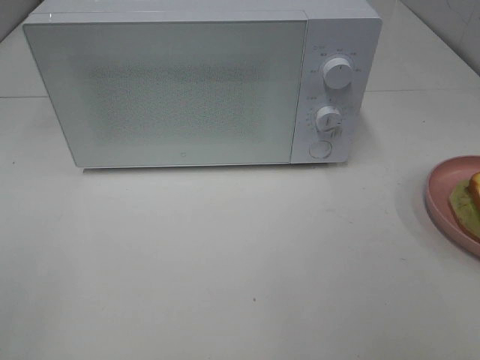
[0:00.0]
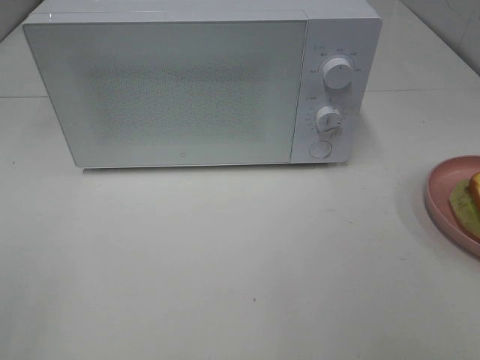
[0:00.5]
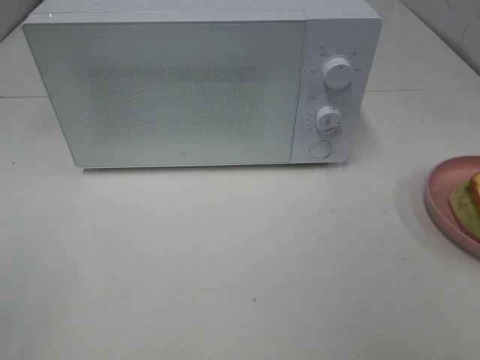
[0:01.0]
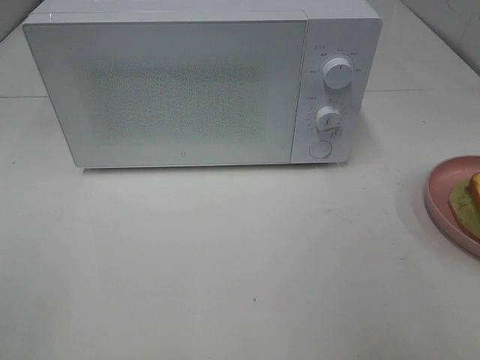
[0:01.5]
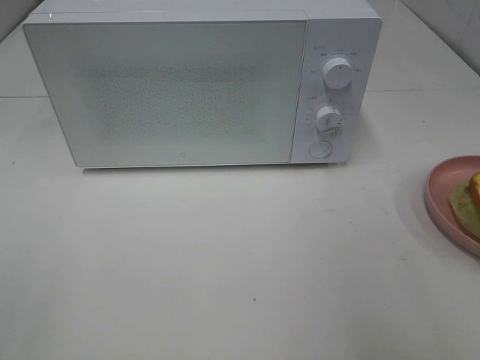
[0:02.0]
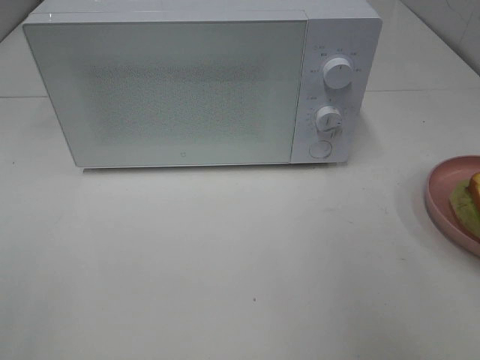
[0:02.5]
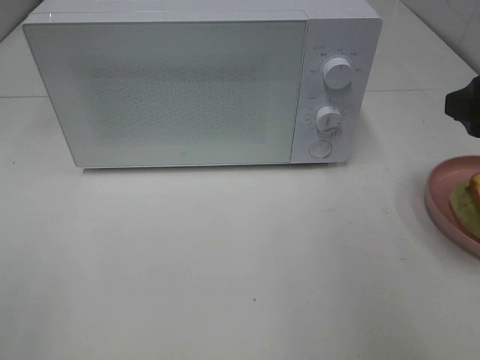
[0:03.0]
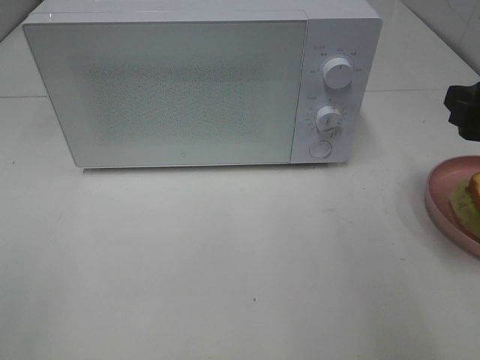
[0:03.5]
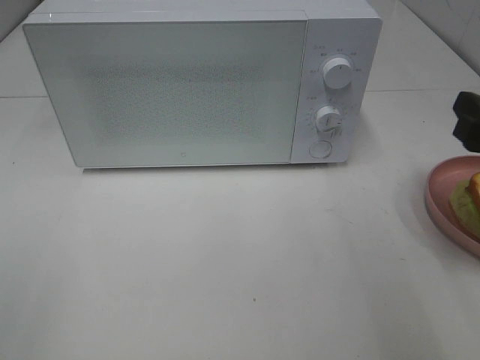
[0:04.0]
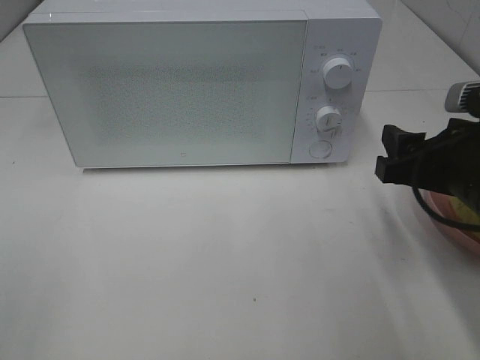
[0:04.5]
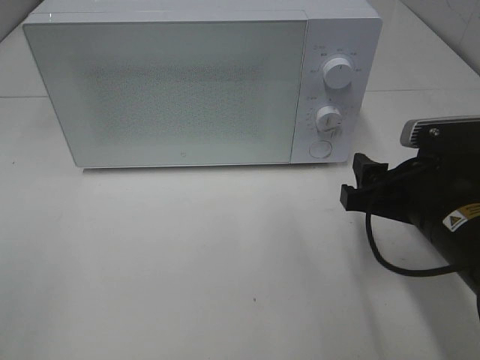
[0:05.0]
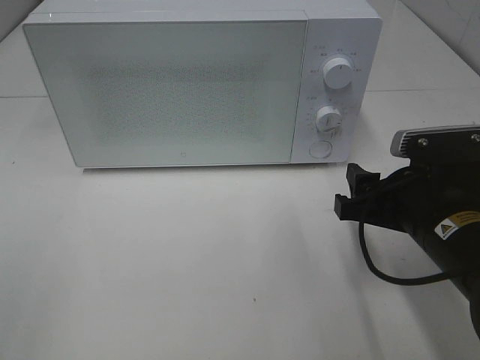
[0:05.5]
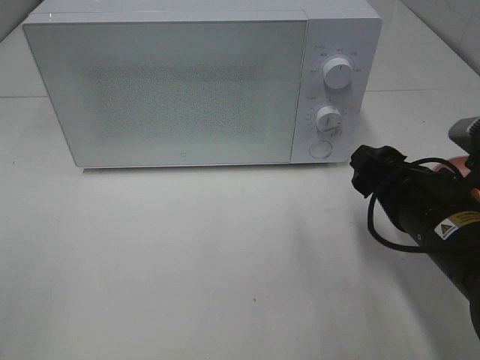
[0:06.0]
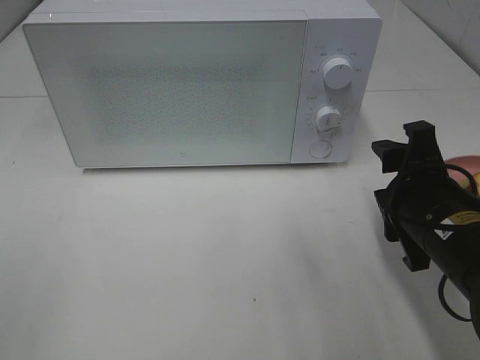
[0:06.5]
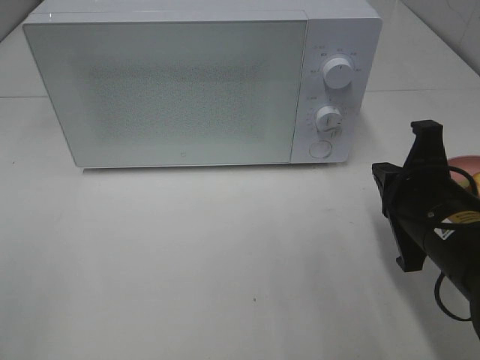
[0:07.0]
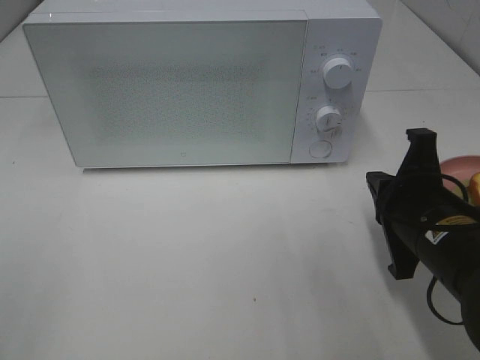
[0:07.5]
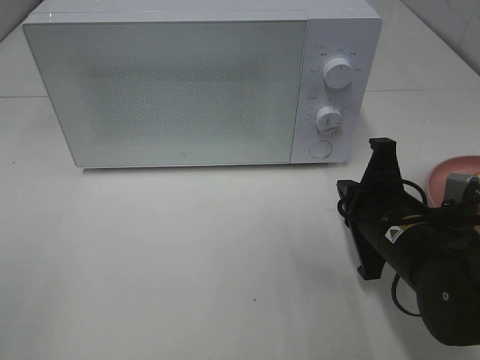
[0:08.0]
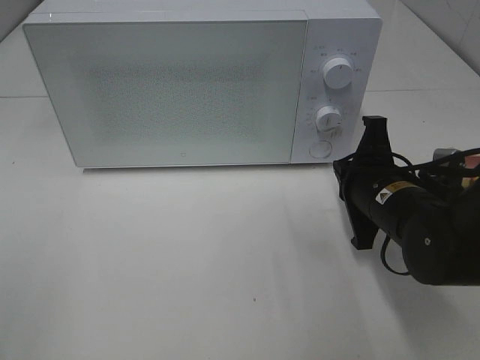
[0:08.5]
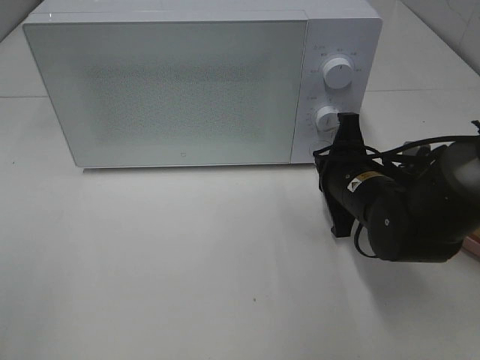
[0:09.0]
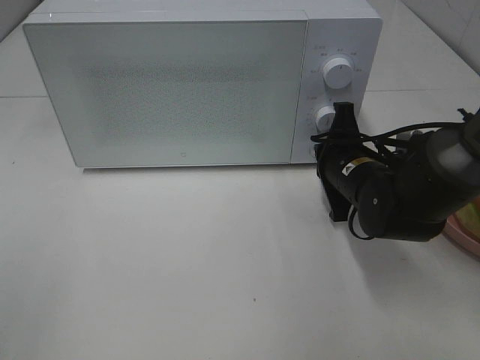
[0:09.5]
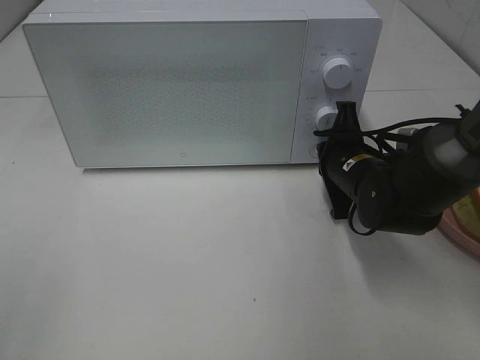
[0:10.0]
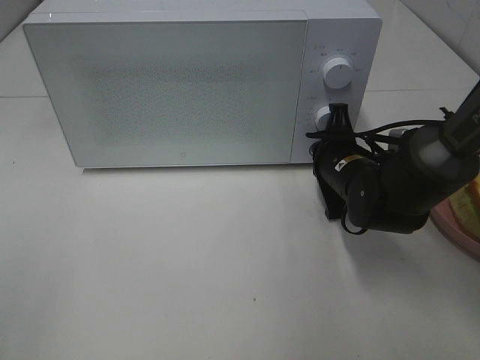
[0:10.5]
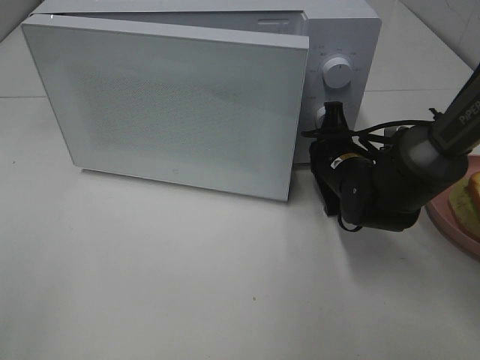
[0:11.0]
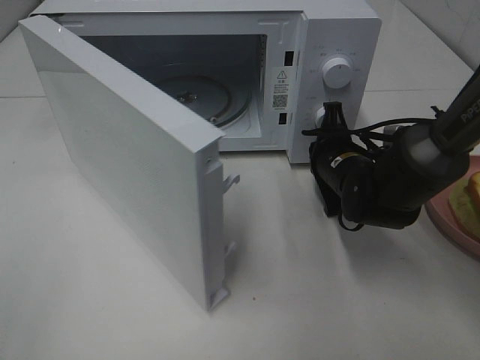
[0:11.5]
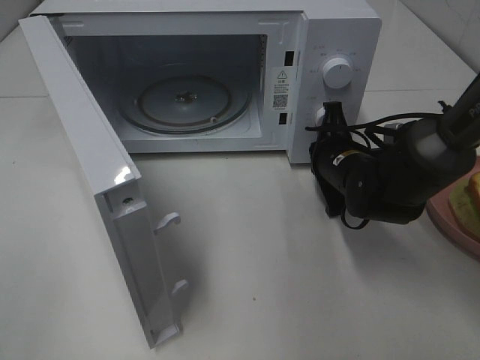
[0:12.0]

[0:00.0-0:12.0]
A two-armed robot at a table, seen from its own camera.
Task of the whole recording: Heat Sandwich.
0:02.0 to 0:04.0: The right gripper is displaced downward and forward by some 10 cm.
0:04.0 to 0:06.0: The right gripper goes approximately 10 cm to the left and downward.
0:06.0 to 0:08.0: The right gripper closes up.
0:08.0 to 0:10.0: The right gripper goes roughly 10 cm forward.

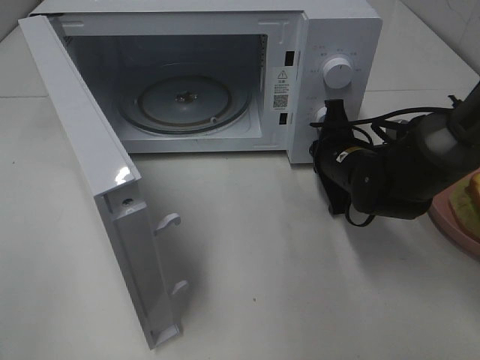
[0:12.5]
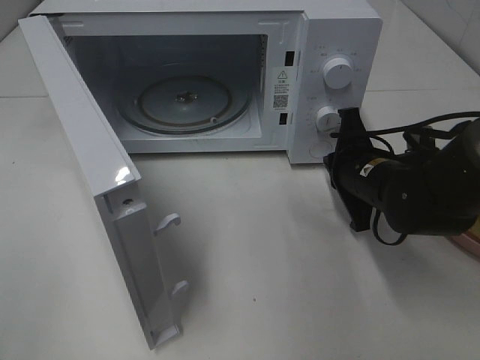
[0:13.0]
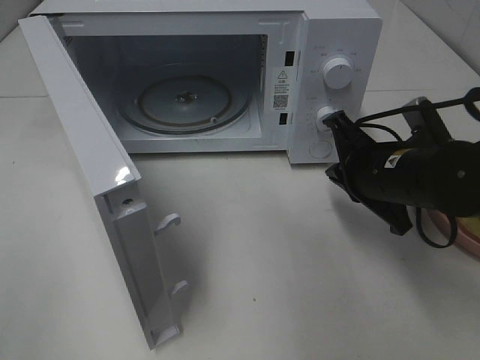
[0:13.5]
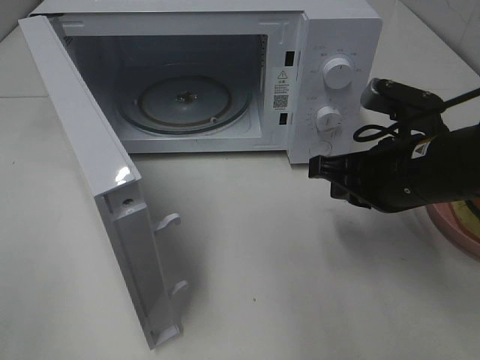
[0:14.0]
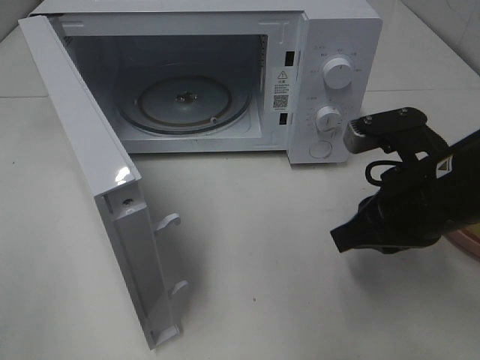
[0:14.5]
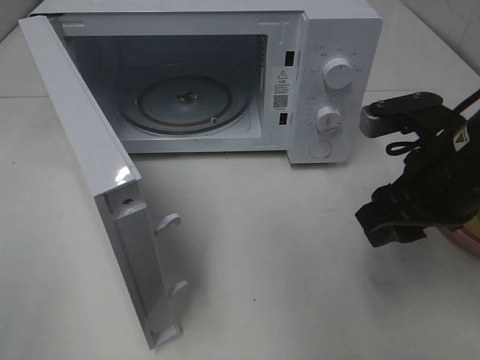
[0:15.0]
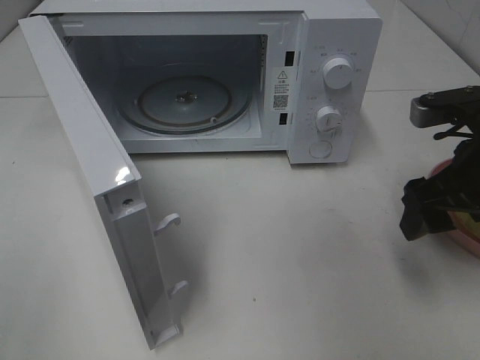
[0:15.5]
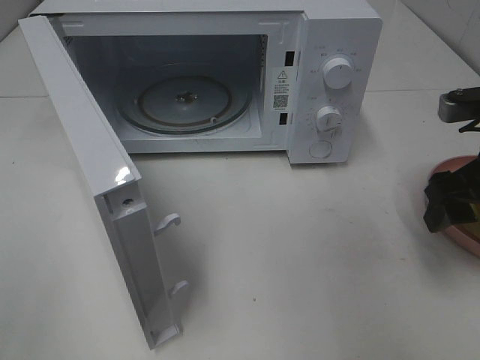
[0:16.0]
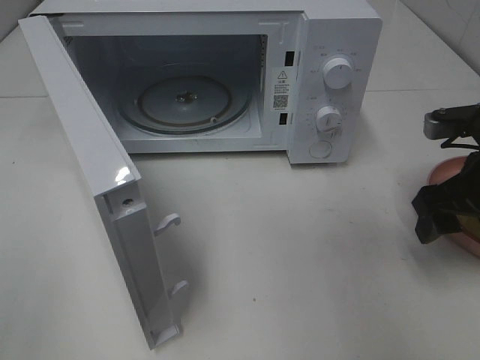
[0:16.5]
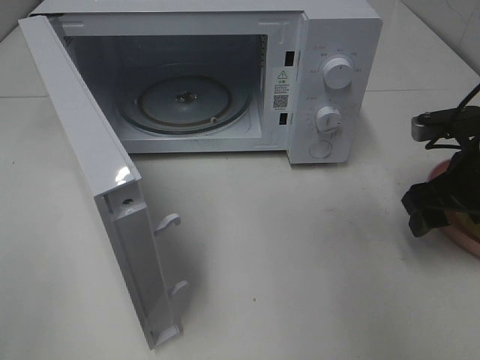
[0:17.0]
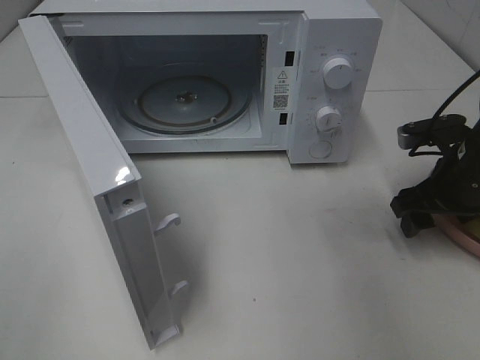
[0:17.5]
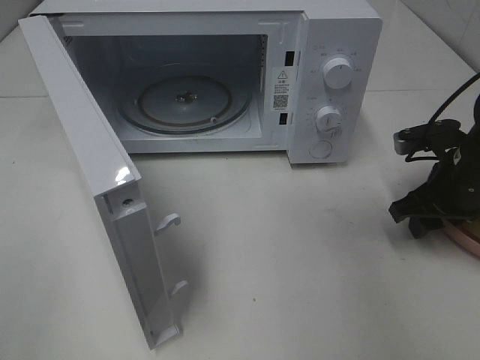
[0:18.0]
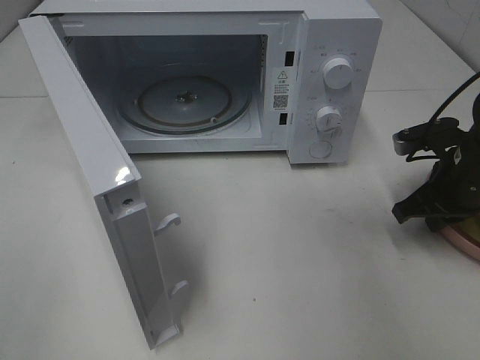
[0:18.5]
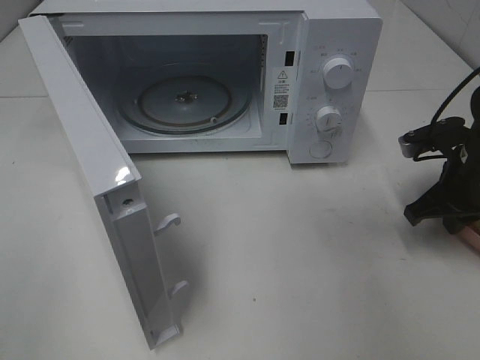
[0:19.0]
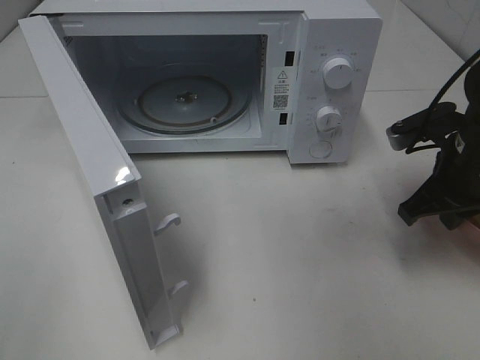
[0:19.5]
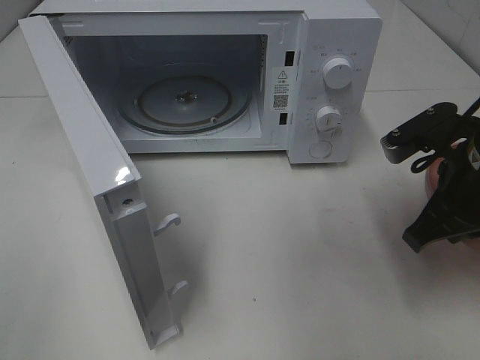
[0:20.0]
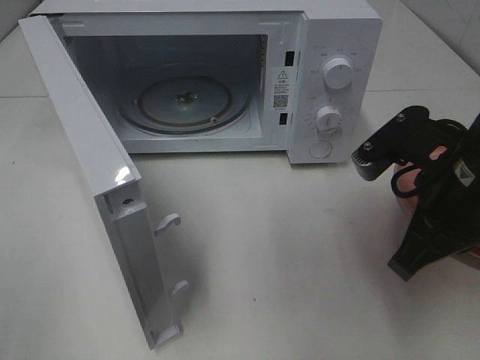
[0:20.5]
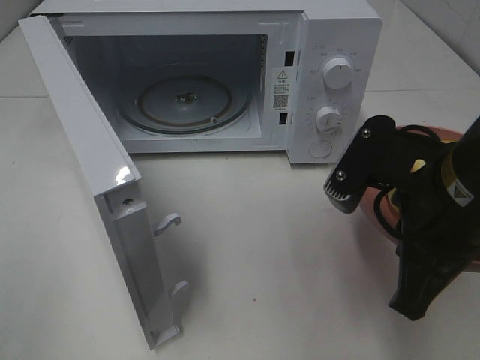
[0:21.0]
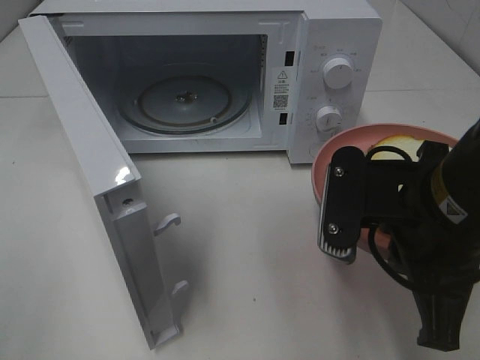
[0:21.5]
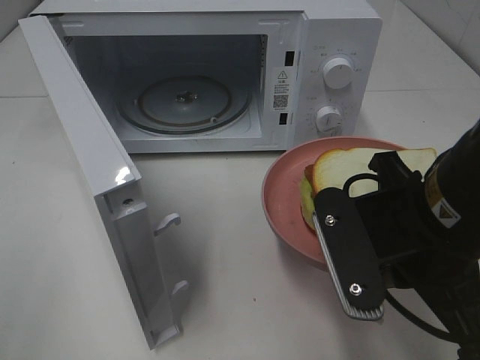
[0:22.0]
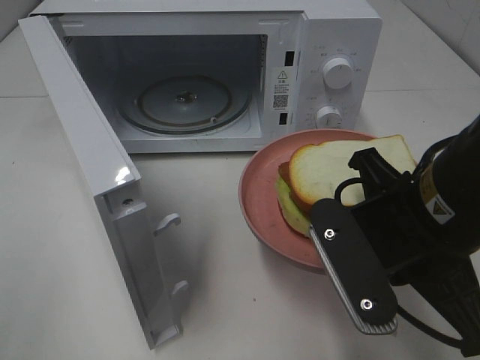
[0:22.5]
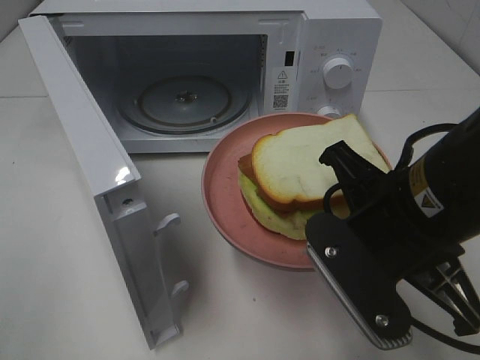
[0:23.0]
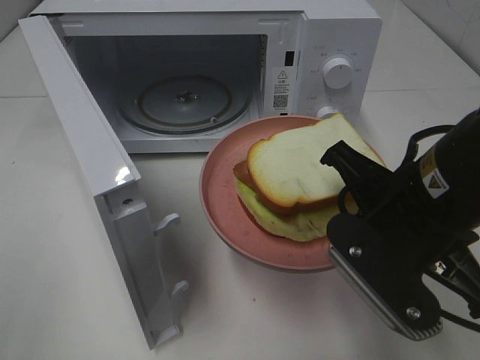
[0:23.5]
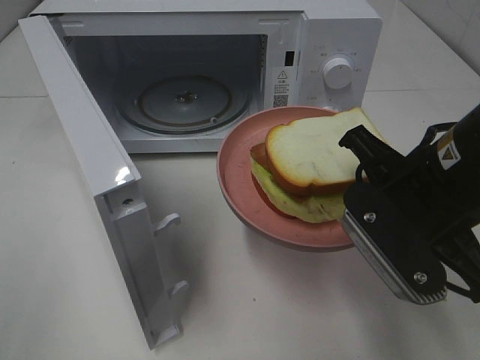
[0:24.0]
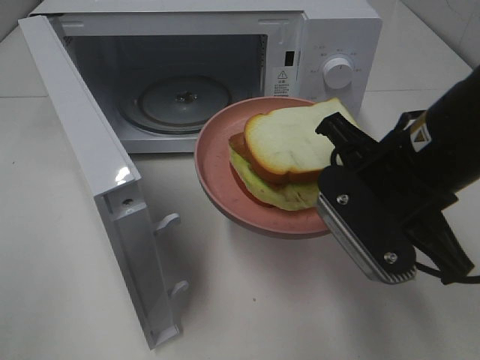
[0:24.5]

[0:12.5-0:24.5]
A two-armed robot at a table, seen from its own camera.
Task of the whole recording: Heat Sandwich.
Step, 0:13.0 to 0:18.0: Right hand: grab the plate with the sandwich.
0:12.5 to 0:14.5: The right gripper shifts roughly 15 cm backward and upward.
0:14.5 to 0:16.5: The right gripper shifts about 10 cm to the right, and opens its fingers.
0:16.5 to 0:18.5: The right gripper moves downward and forward, about 10 cm, and closes up.
0:18.5 to 0:20.5: The right gripper is displaced backward, to the left and upward by about 15 cm.
0:20.5 to 0:22.5: The right gripper heads to the left, covering some 5 cm.

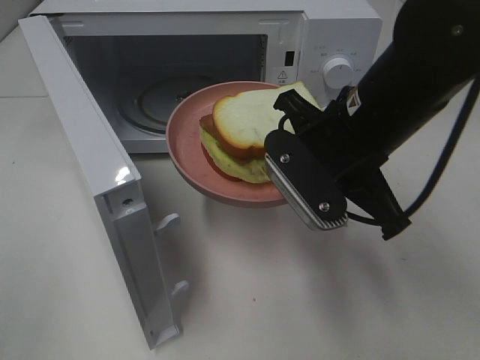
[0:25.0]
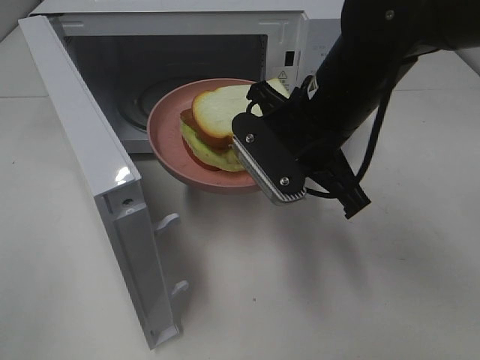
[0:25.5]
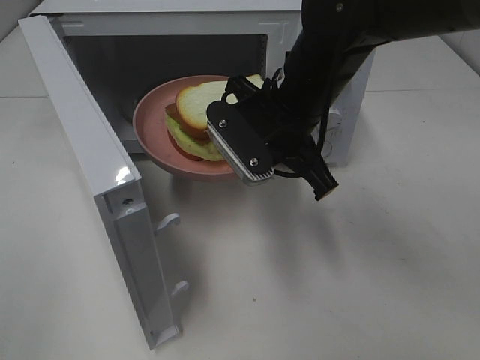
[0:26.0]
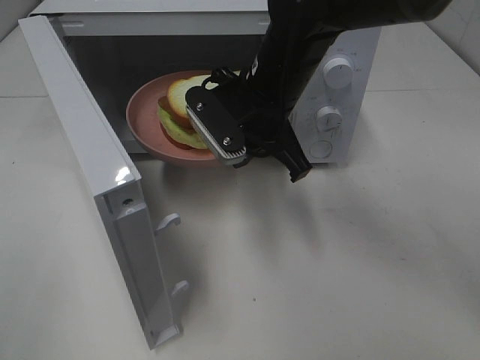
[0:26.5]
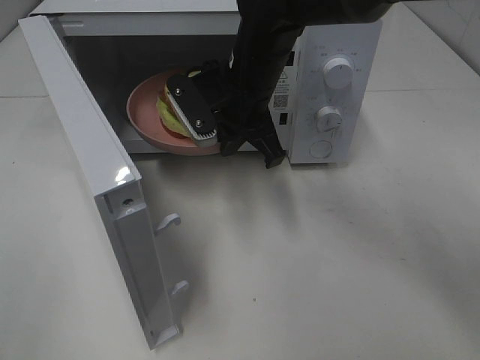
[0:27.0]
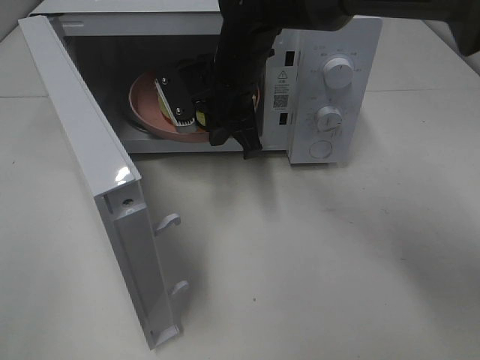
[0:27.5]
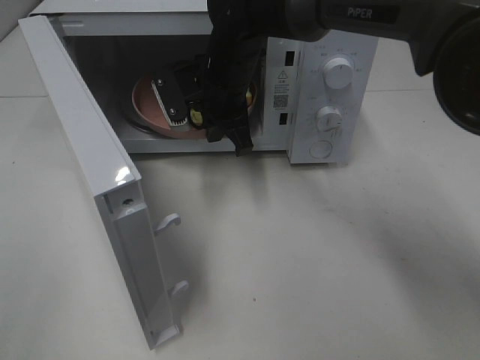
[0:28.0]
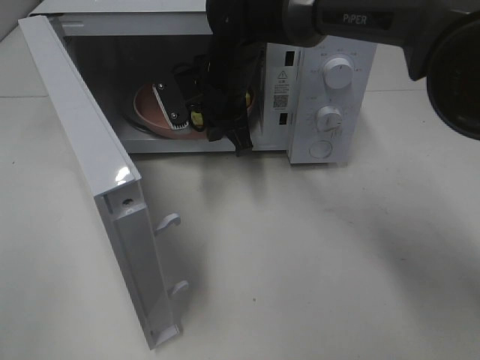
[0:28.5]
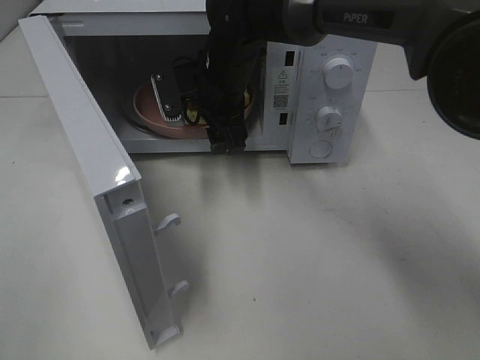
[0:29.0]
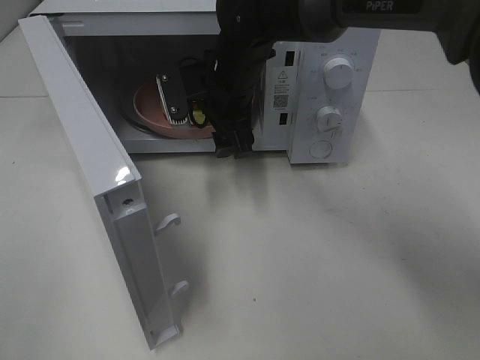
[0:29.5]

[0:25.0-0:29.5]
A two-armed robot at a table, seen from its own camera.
Task of the whole recording: Heat Sandwich.
Step, 0:25.0 to 0:28.5: Right hand: place the plate in the microwave.
0:25.0 to 0:27.0: The right gripper heads forward and to the left, covering some 15 cm.
0:27.0 to 0:29.5: The right gripper opens its fingers.
